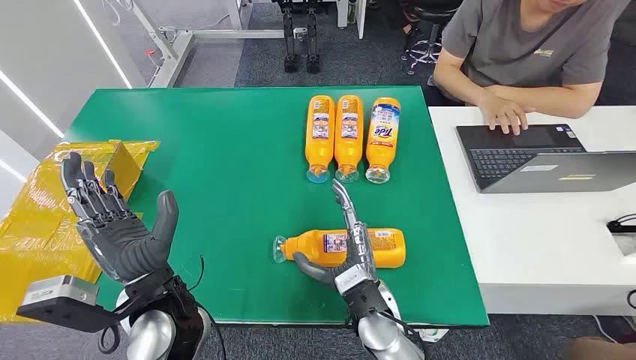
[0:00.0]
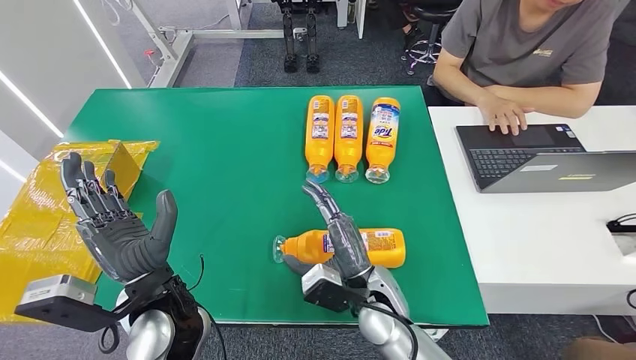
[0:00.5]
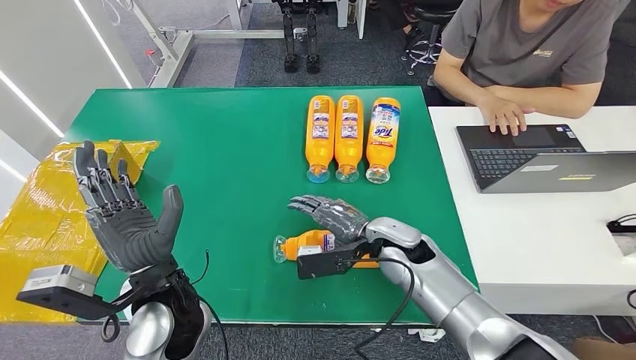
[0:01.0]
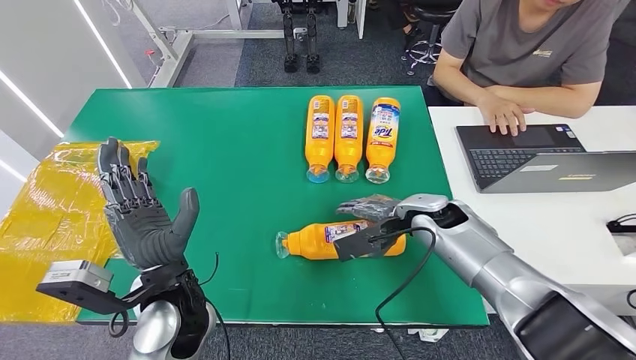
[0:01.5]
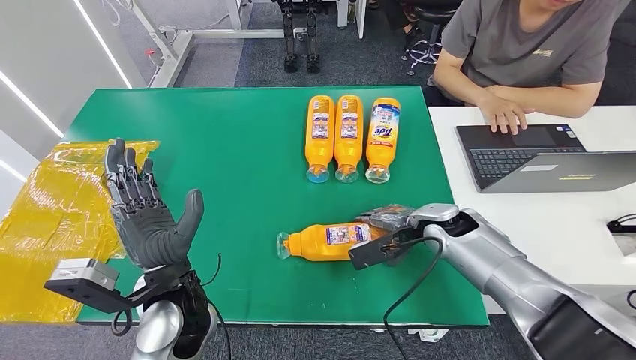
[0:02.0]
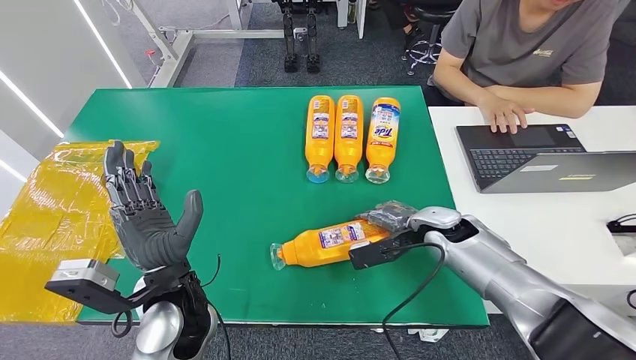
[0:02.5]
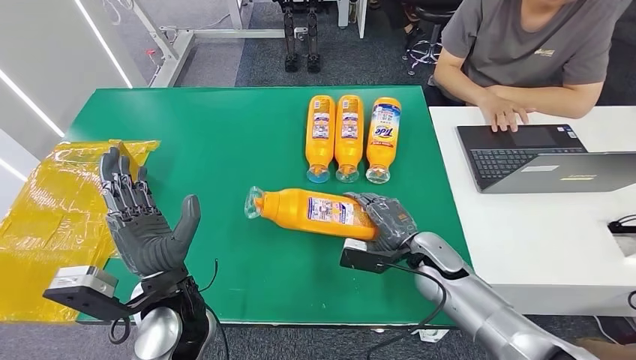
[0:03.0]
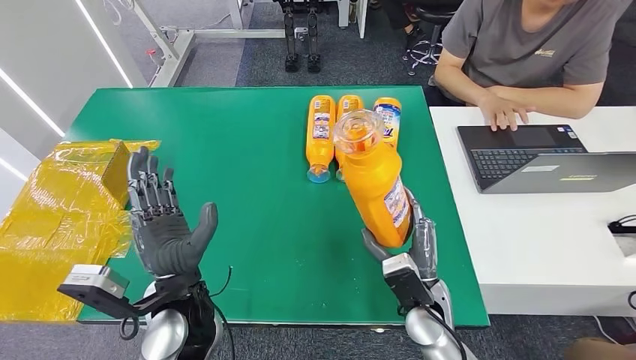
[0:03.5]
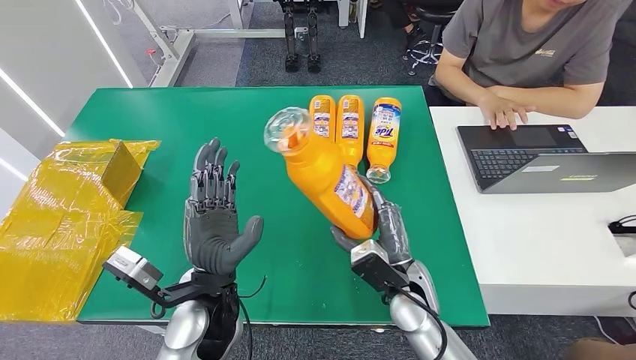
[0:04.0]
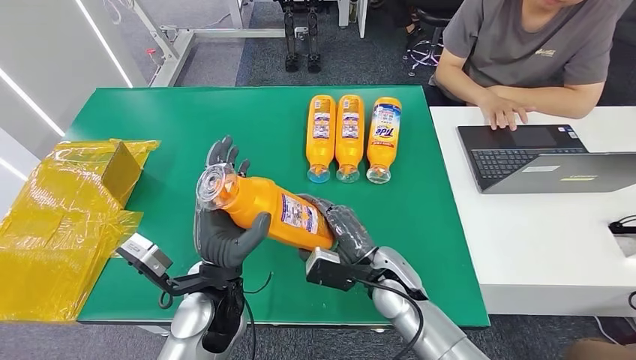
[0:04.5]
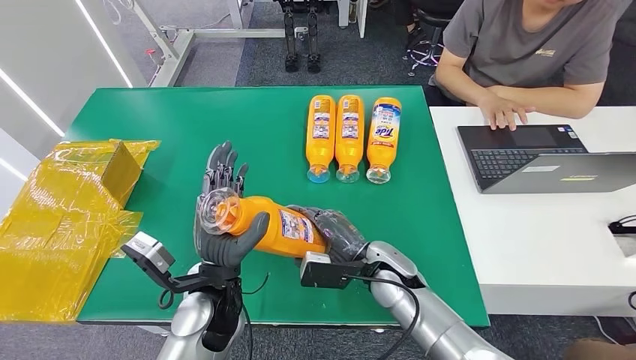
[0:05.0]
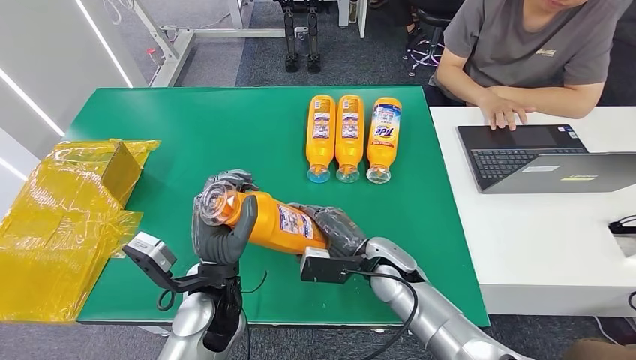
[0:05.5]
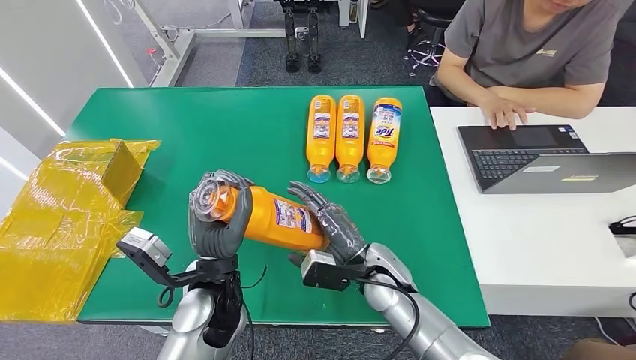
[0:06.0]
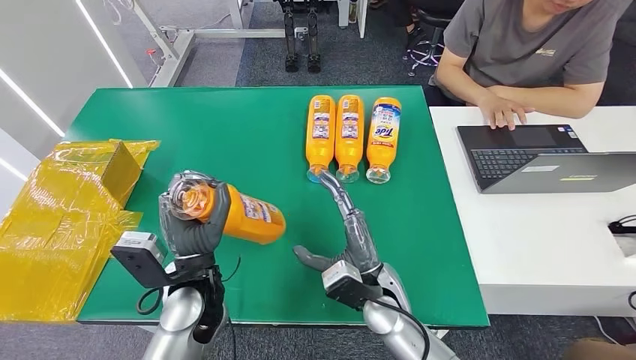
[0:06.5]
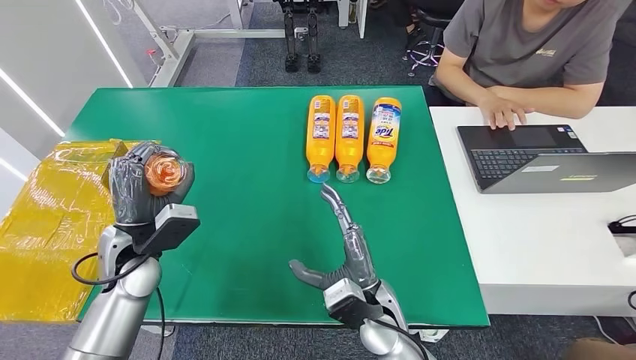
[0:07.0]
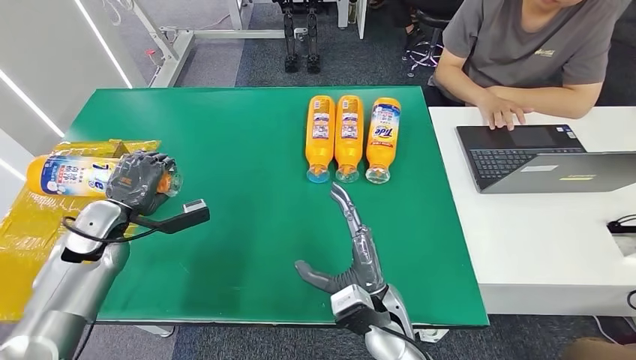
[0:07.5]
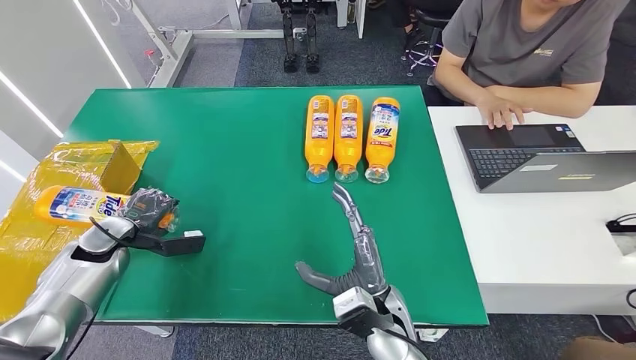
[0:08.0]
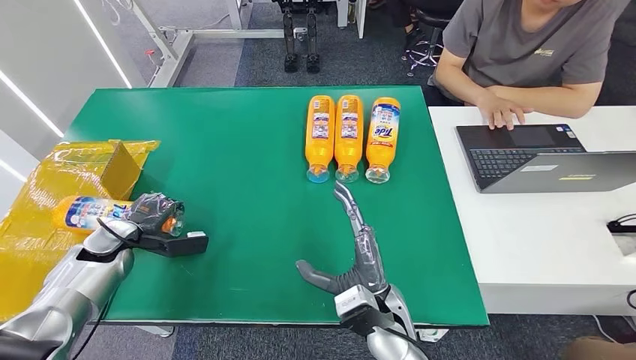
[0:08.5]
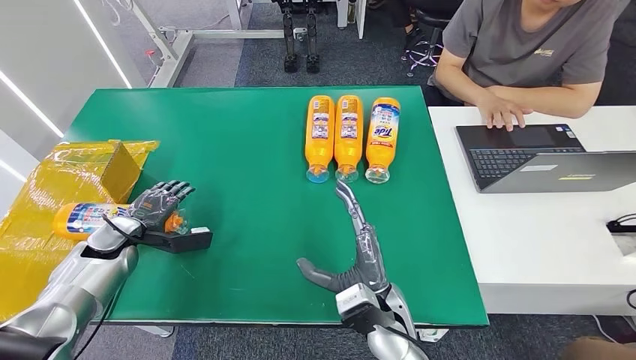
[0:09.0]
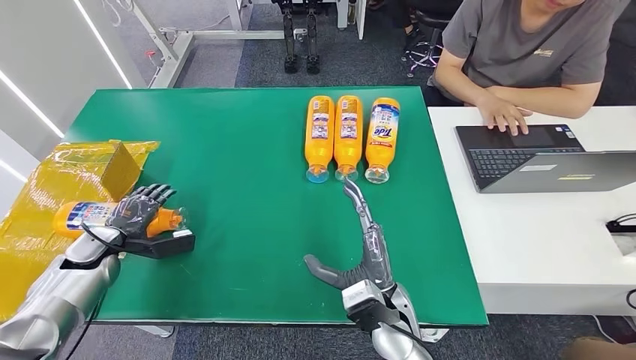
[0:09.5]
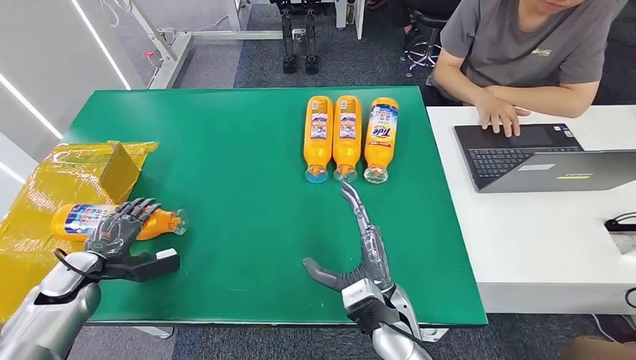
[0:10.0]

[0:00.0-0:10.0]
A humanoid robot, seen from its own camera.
Step, 0:00.0 to 0:04.0: Pick up the bottle from the table.
Step, 0:04.5 to 0:10.0: Turn the bottle to the front side.
0:08.0 to 0:10.0: The left hand travels backward by about 5 cm.
